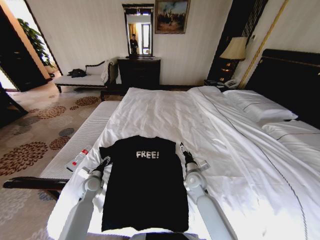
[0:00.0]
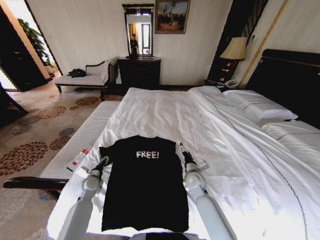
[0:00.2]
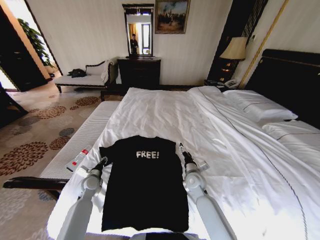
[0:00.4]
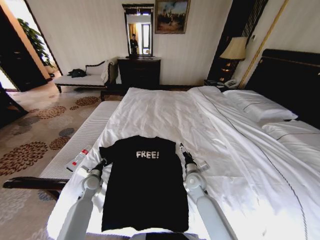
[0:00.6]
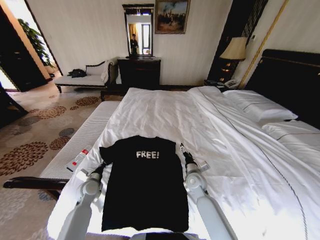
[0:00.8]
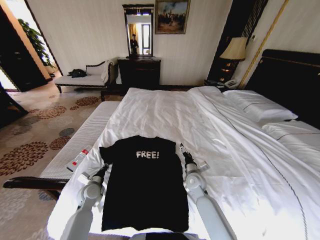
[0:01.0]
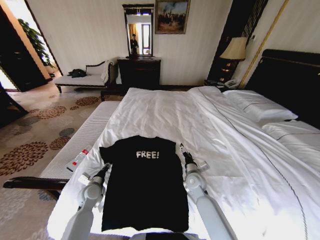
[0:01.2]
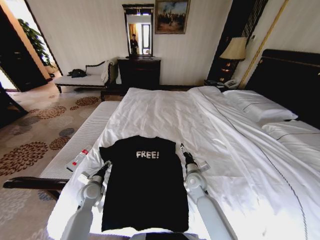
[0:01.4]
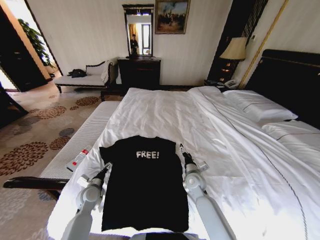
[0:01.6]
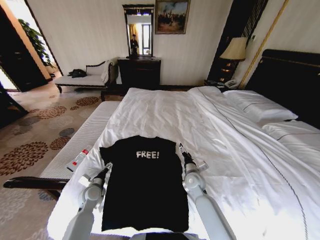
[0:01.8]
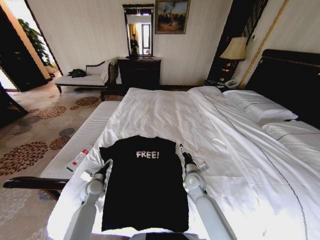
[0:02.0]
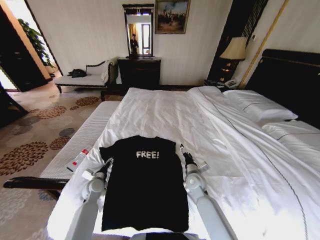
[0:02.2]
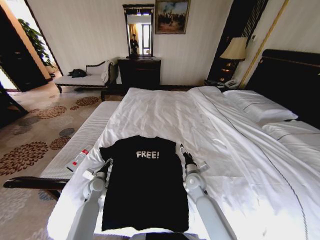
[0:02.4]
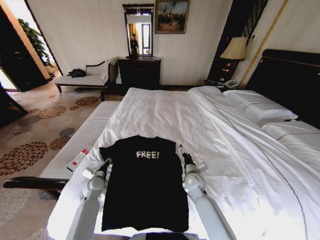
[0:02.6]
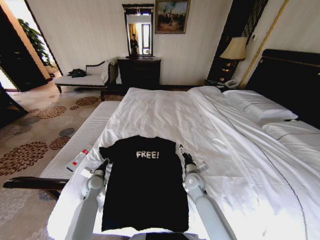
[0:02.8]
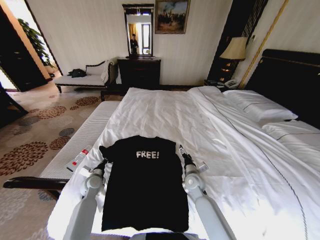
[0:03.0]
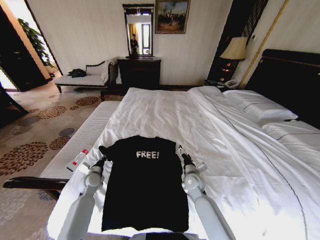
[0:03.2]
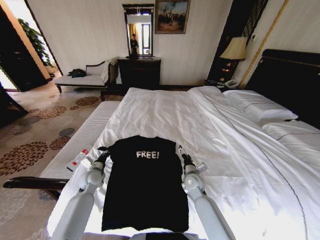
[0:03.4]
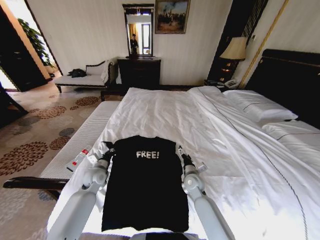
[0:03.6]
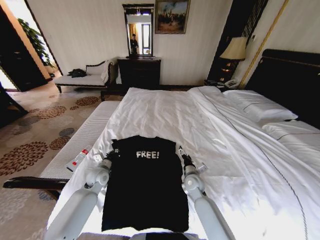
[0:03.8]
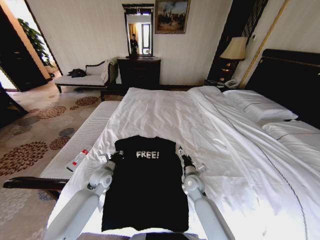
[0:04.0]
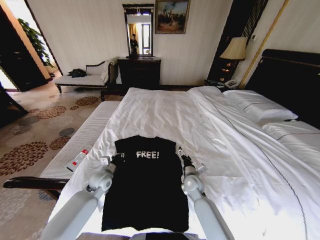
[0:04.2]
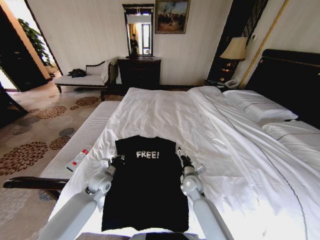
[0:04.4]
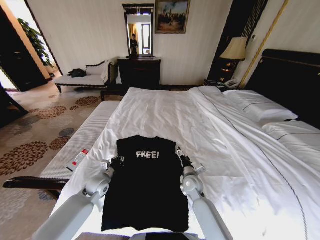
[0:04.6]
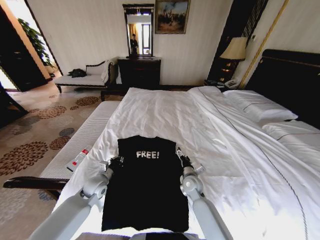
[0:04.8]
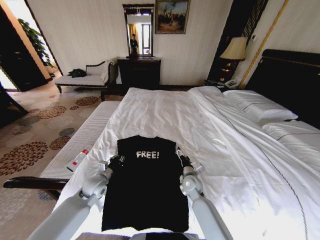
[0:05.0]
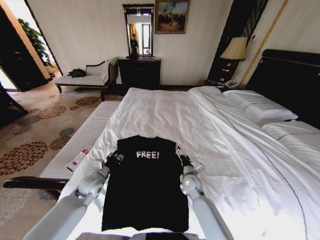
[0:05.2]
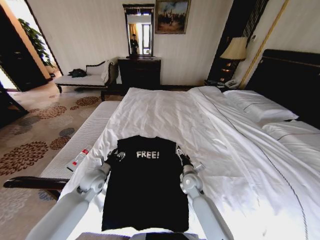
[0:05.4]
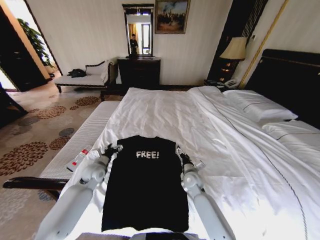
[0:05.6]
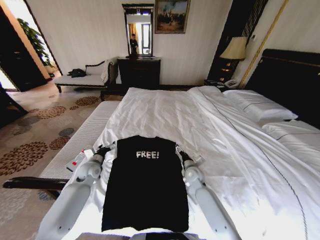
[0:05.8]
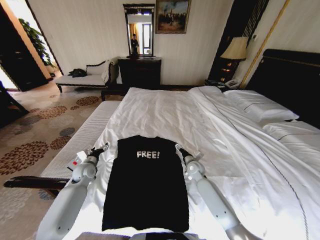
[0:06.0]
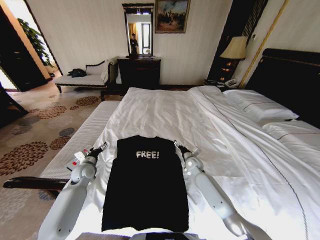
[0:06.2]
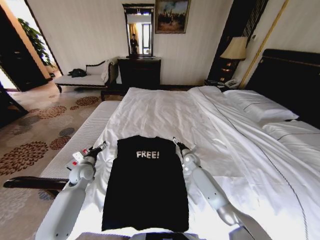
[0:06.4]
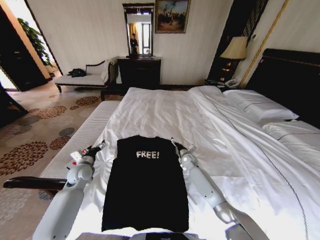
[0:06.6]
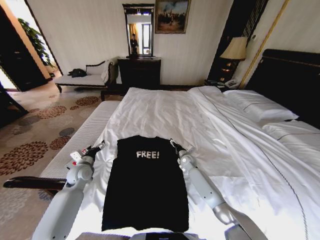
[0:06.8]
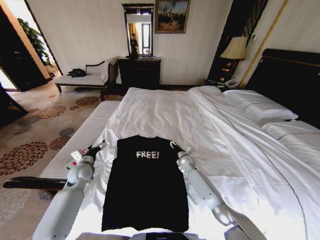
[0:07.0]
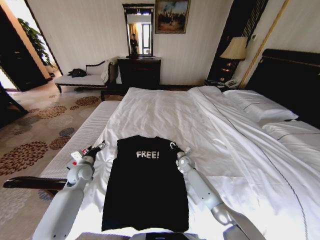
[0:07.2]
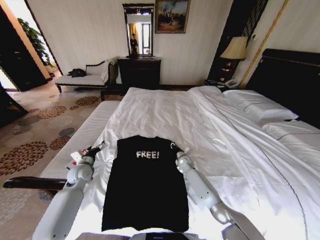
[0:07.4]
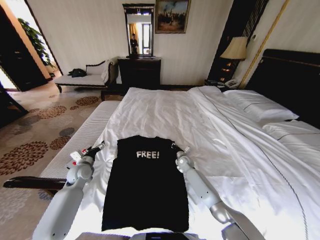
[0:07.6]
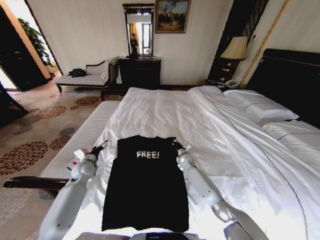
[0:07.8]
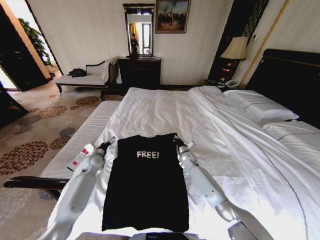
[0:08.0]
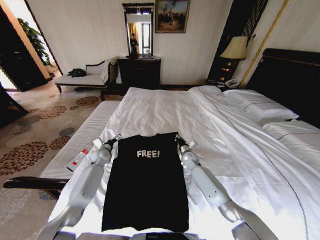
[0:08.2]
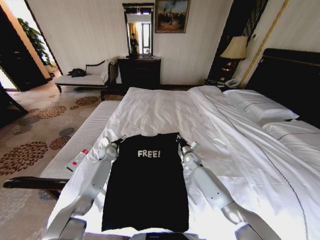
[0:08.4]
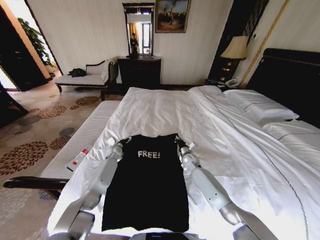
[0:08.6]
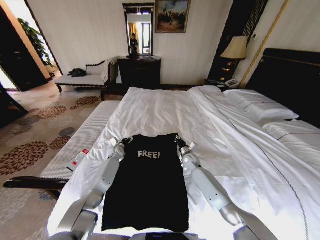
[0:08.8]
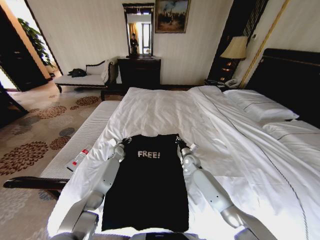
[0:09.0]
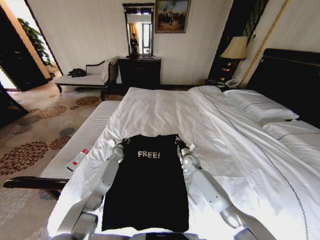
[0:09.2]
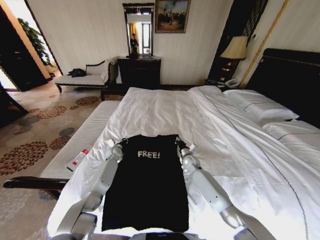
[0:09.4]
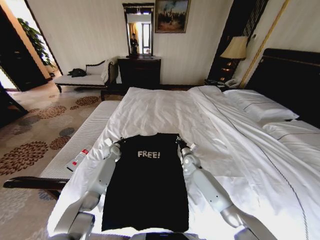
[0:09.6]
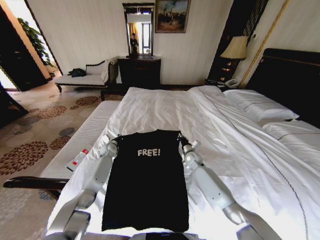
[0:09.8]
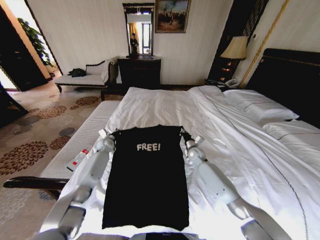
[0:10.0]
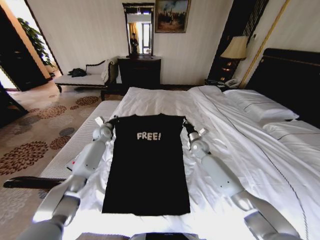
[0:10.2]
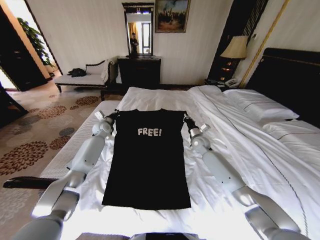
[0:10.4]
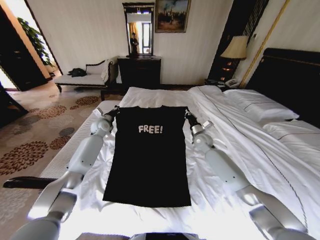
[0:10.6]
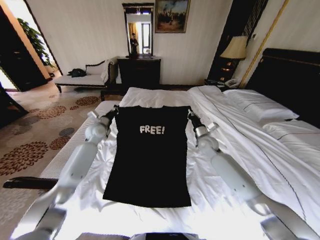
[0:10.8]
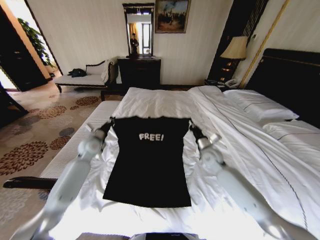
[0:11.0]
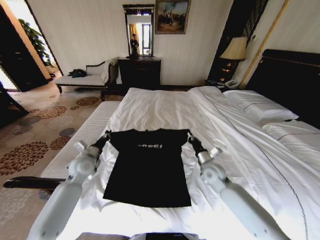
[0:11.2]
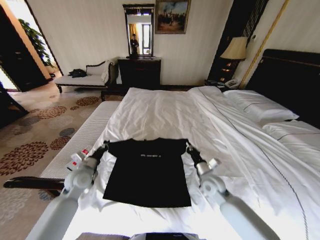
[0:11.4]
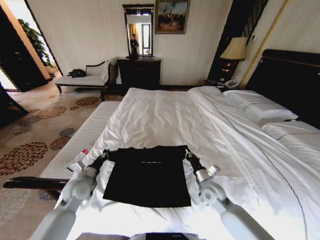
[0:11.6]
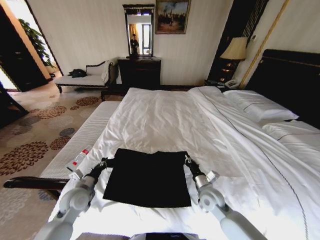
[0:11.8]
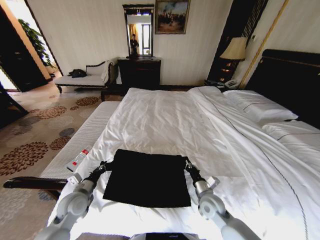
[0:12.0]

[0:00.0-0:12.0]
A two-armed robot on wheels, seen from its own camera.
Task of the whole recording: Fold the clothes on the bed.
0:00.0 to 0:01.6: The left gripper closes, then reopens.
0:01.6 to 0:03.0: The left gripper moves forward, approximately 5 cm, and closes.
0:03.0 to 0:04.4: The left gripper moves to the right, about 5 cm.
0:04.4 to 0:06.0: The right gripper moves forward, some 10 cm. The left gripper shifts about 10 cm to the left, and opens.
0:06.0 to 0:07.6: The right gripper is displaced forward by some 5 cm, and closes.
0:07.6 to 0:09.0: The left gripper goes approximately 20 cm forward, to the right and downward.
0:09.0 to 0:10.4: The right gripper is displaced upward and forward by some 10 cm. The left gripper travels upward by about 15 cm, and closes up.
0:10.4 to 0:12.0: The grippers both shift backward by roughly 30 cm.

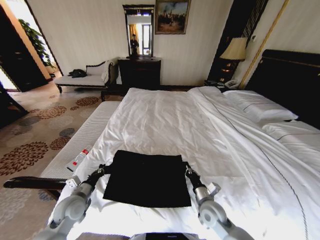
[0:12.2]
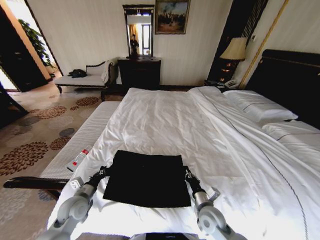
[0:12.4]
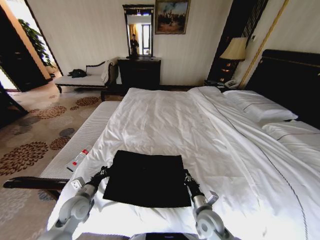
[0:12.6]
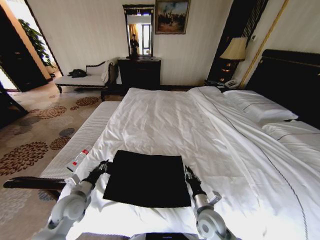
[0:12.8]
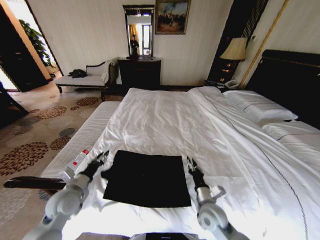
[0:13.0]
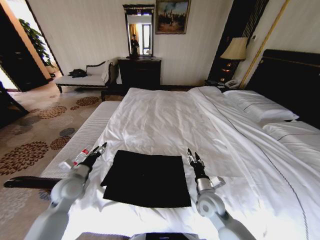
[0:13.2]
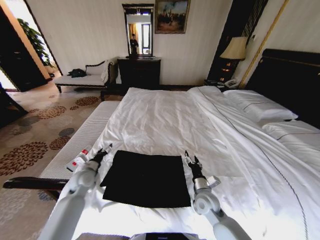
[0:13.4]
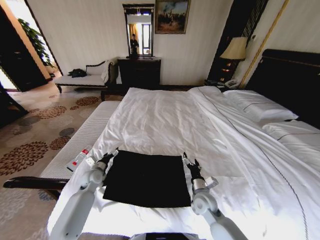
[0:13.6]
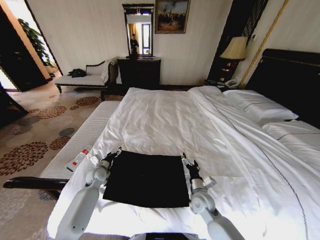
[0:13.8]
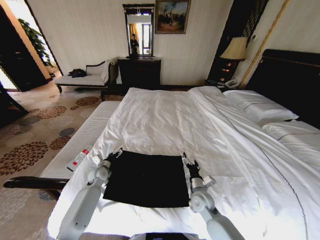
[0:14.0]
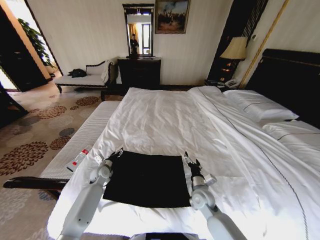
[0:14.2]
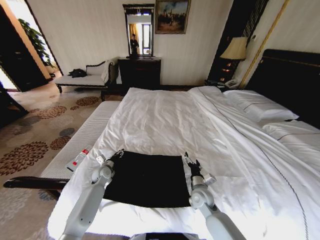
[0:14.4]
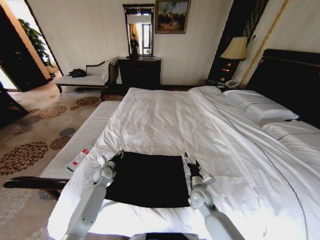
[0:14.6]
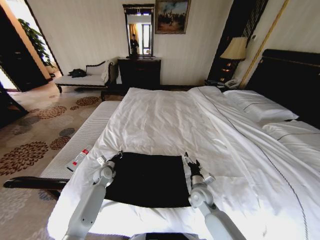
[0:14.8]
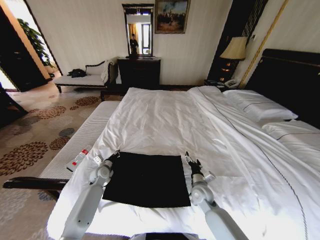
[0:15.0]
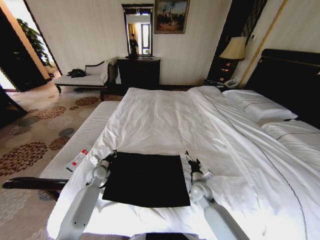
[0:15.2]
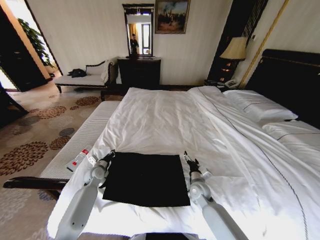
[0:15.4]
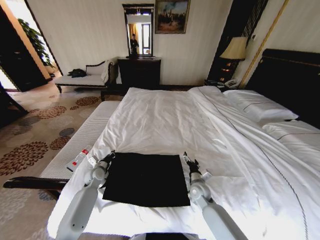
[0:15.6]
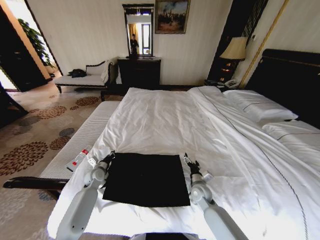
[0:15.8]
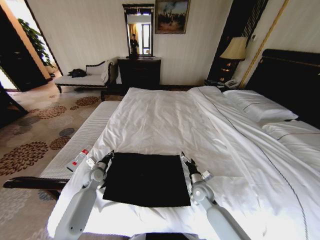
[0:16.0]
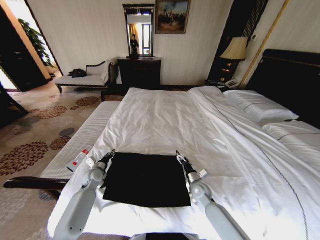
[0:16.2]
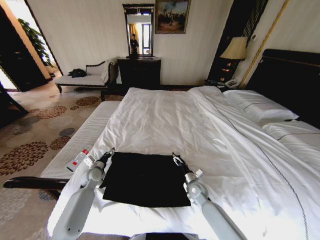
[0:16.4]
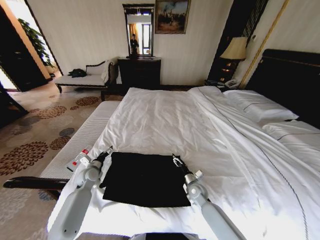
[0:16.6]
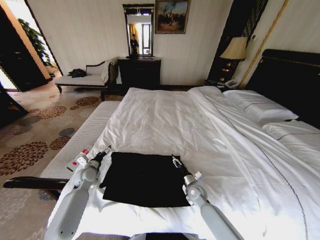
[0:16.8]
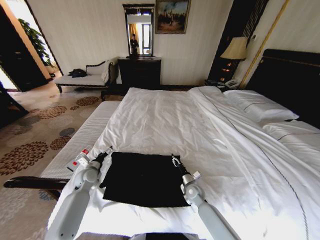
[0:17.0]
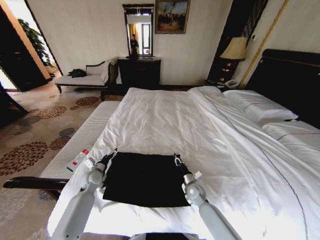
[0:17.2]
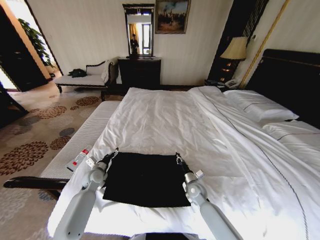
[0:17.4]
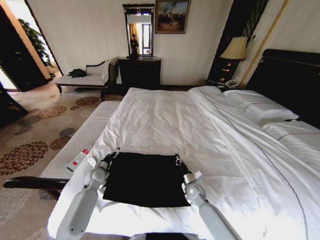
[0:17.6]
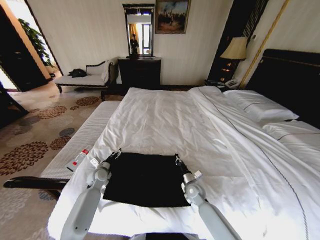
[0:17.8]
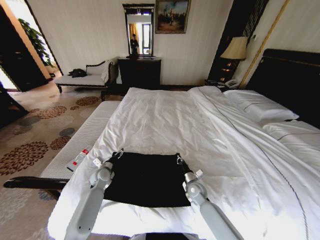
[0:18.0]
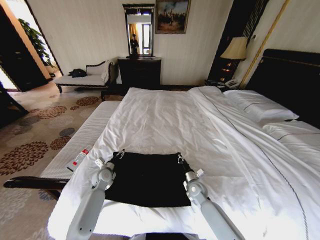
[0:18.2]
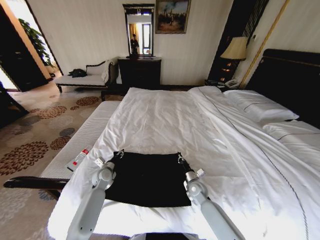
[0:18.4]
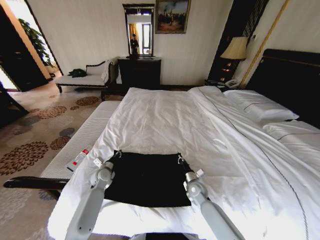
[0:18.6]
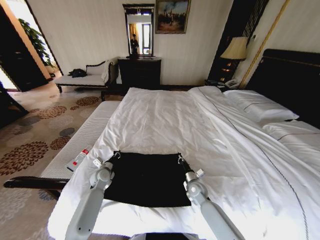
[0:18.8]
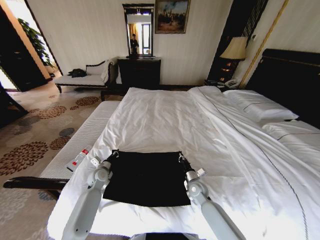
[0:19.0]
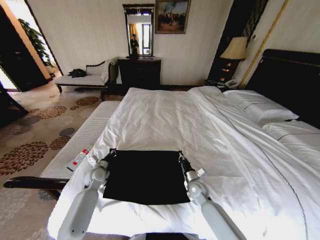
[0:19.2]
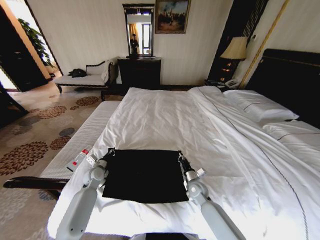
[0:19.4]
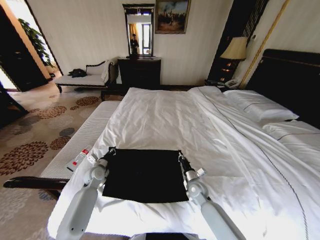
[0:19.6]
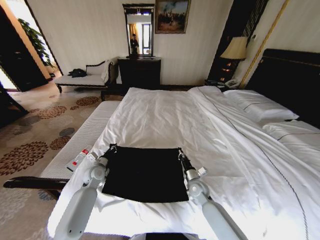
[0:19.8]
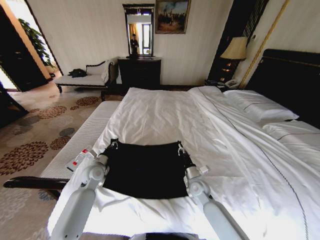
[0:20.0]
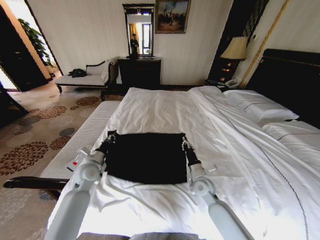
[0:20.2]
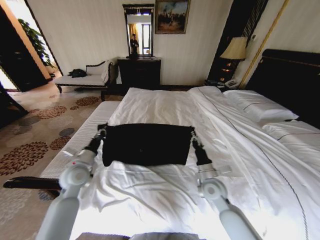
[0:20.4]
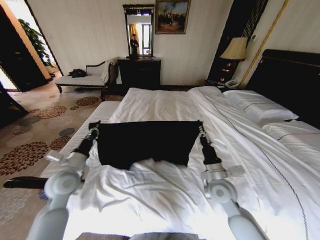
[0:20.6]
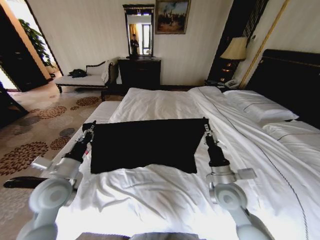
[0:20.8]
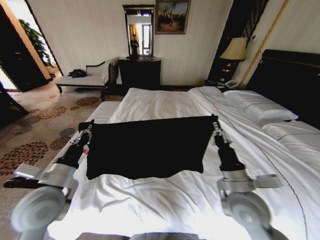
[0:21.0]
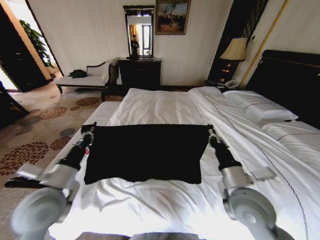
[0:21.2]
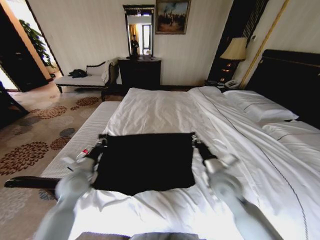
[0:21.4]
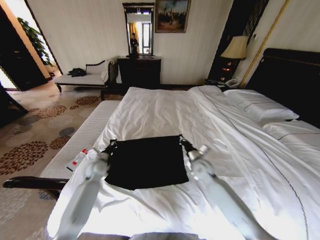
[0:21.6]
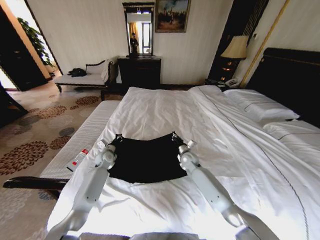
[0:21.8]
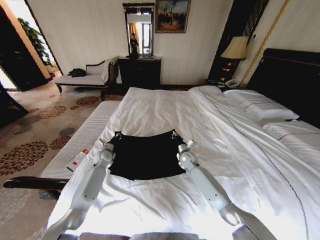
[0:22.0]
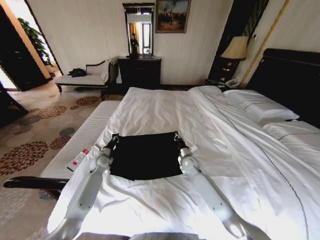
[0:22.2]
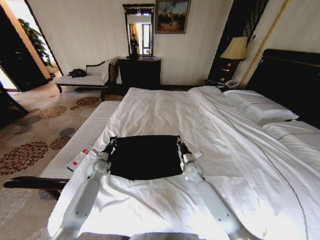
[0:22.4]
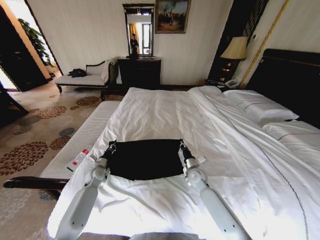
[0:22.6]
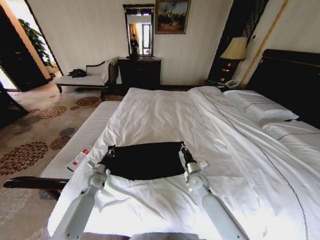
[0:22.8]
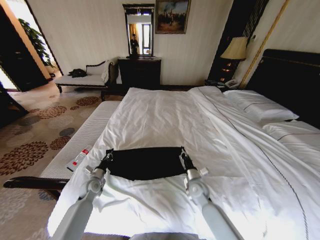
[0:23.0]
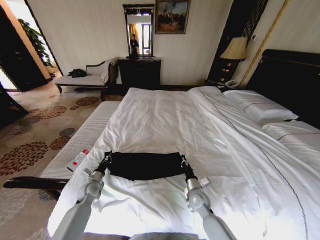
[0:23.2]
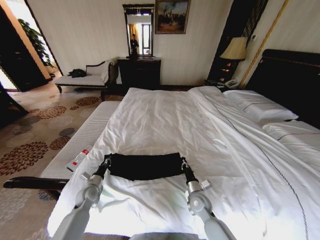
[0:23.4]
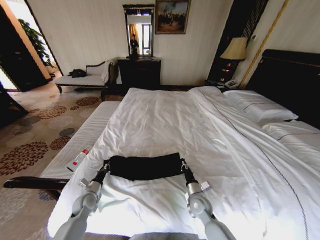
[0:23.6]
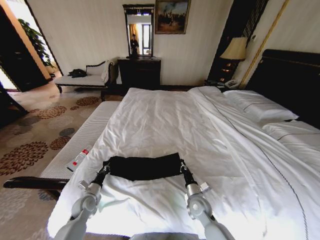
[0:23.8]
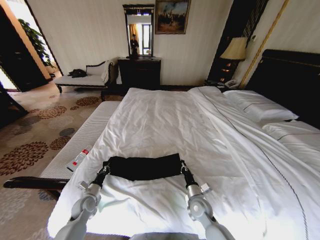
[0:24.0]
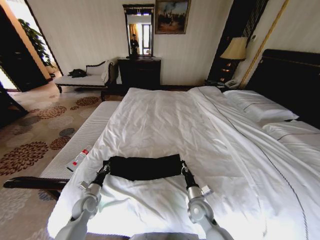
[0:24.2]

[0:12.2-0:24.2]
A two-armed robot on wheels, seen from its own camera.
Task of the whole recording: Fold the clothes on the bed.
0:12.2 to 0:13.8: The left gripper travels forward by about 15 cm, and opens; the right gripper changes place by roughly 5 cm, and opens up.
0:13.8 to 0:15.2: The right gripper ends up some 5 cm from where it was. Meanwhile the left gripper closes up.
0:15.2 to 0:16.6: The left gripper opens its fingers.
0:16.6 to 0:18.2: The left gripper moves to the right, approximately 5 cm. Meanwhile the right gripper closes its fingers.
0:18.2 to 0:19.8: The left gripper closes its fingers.
0:19.8 to 0:21.2: Both grippers move upward and backward, approximately 25 cm.
0:21.2 to 0:22.6: The two grippers go roughly 30 cm downward and forward.
0:22.6 to 0:24.2: Both grippers travel together backward, some 15 cm.
